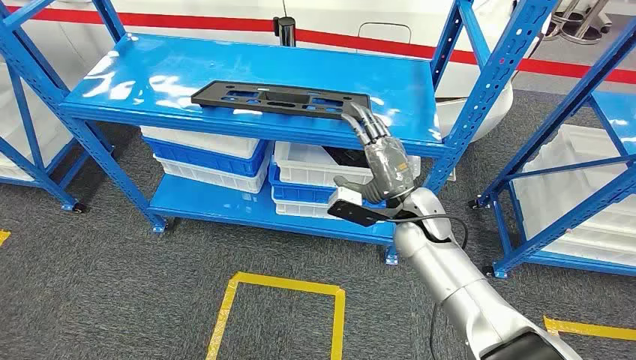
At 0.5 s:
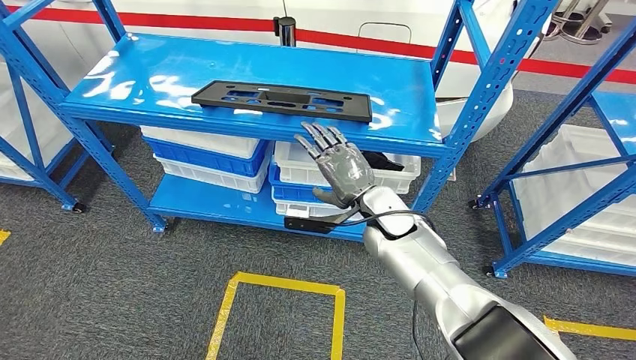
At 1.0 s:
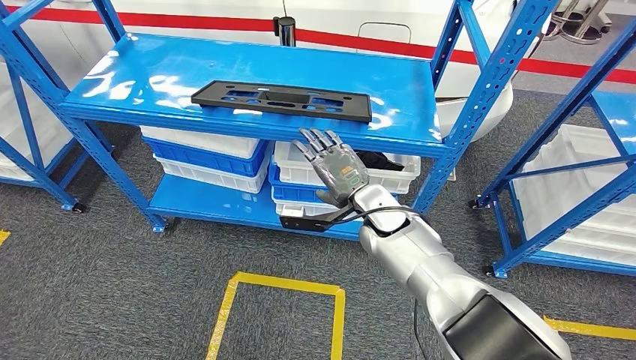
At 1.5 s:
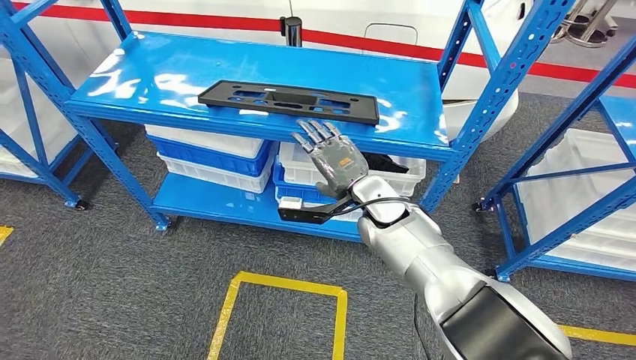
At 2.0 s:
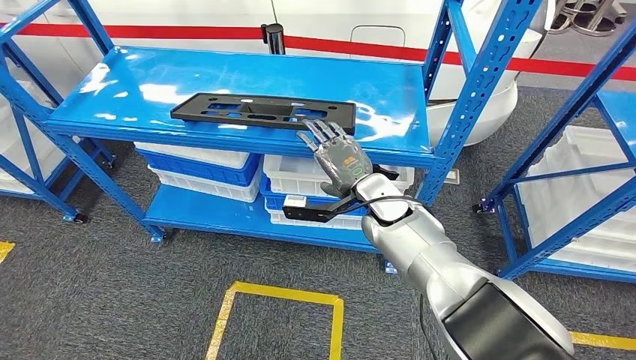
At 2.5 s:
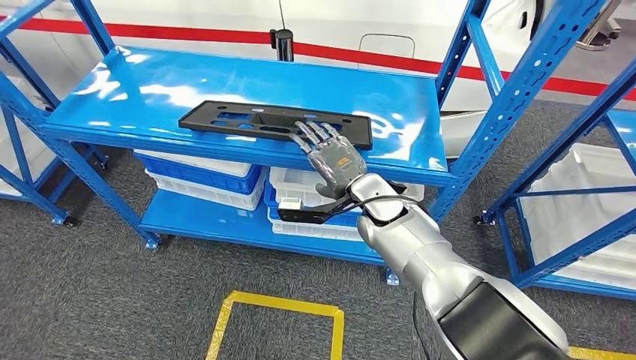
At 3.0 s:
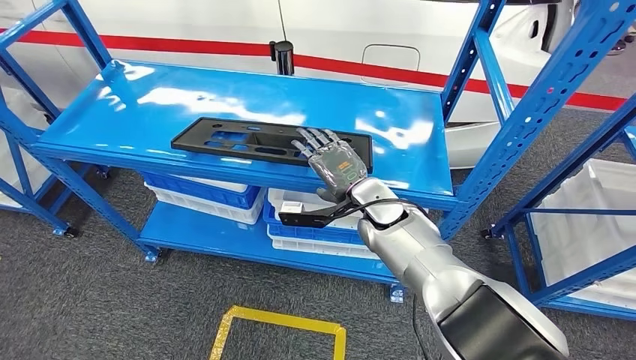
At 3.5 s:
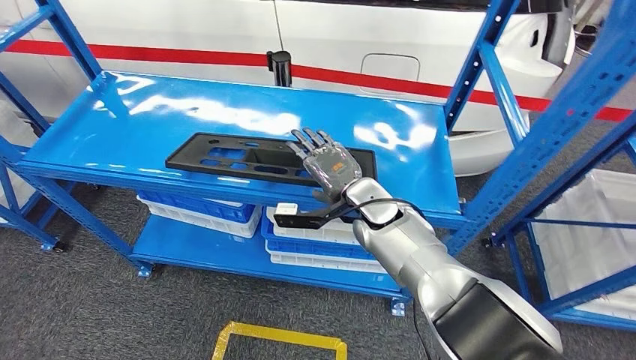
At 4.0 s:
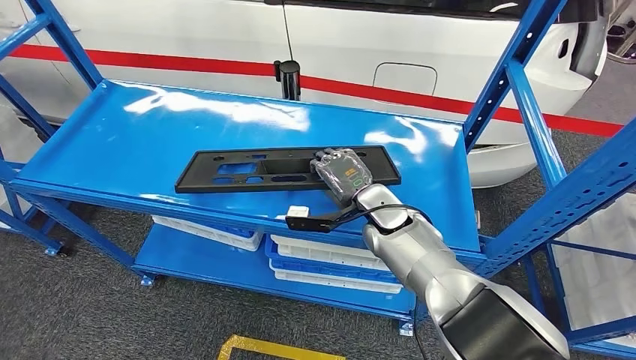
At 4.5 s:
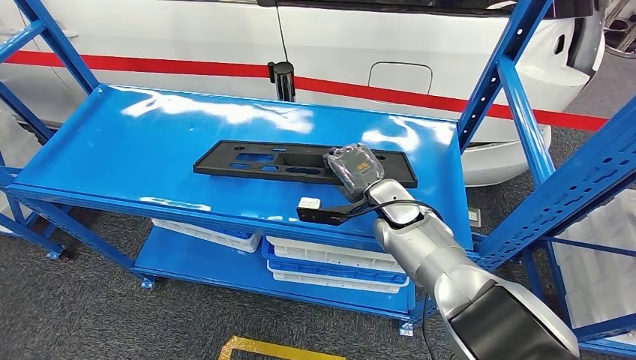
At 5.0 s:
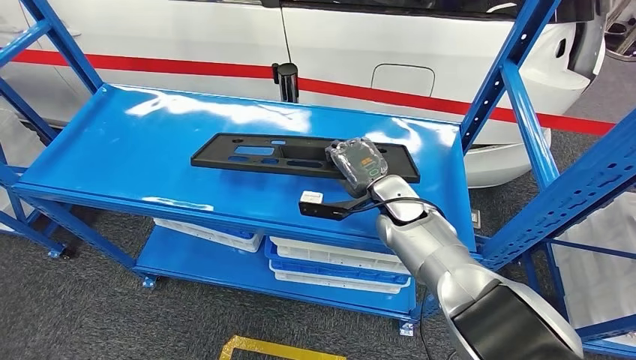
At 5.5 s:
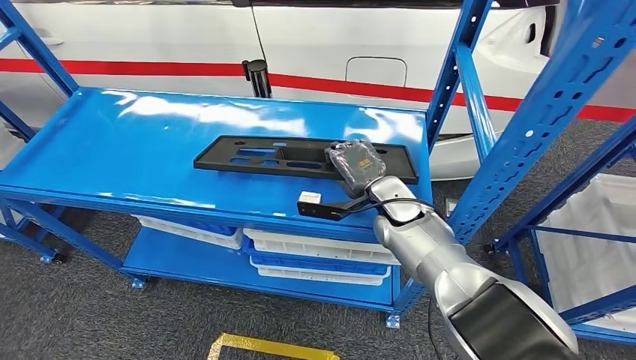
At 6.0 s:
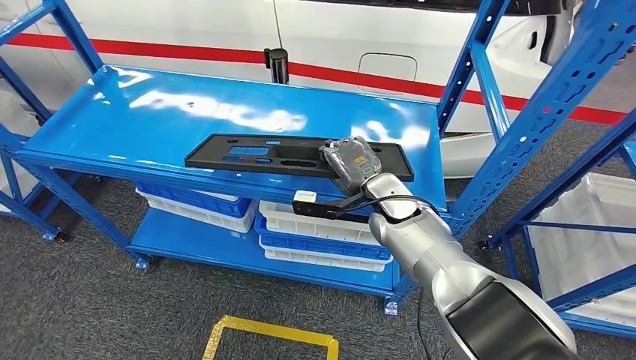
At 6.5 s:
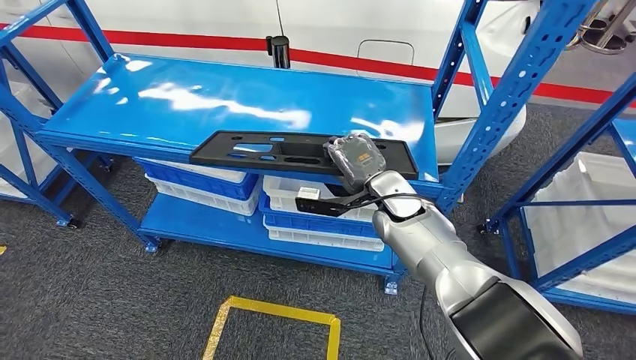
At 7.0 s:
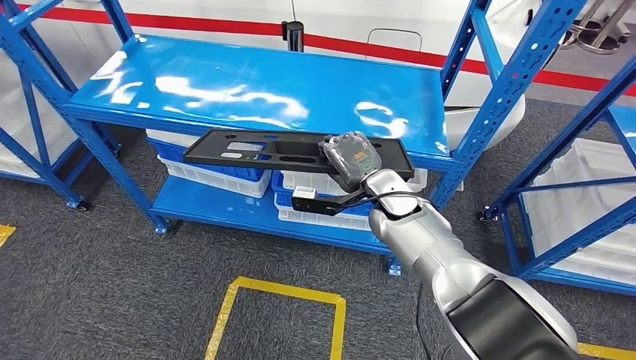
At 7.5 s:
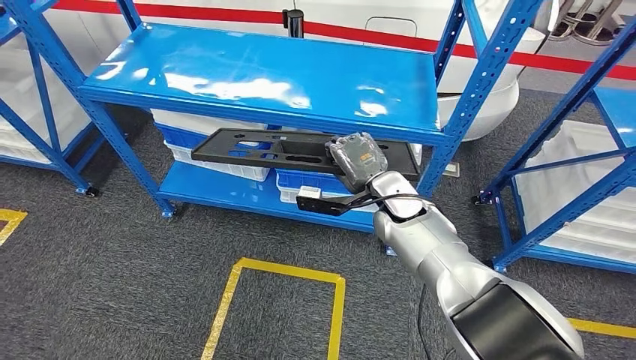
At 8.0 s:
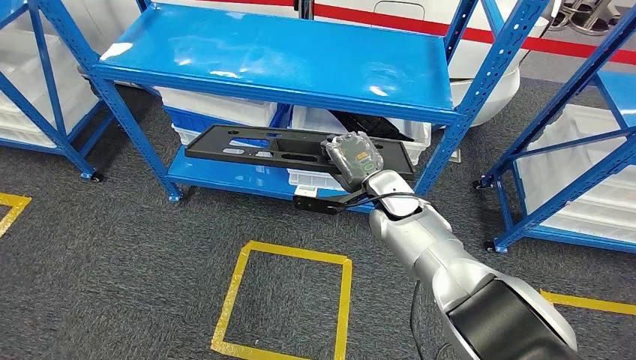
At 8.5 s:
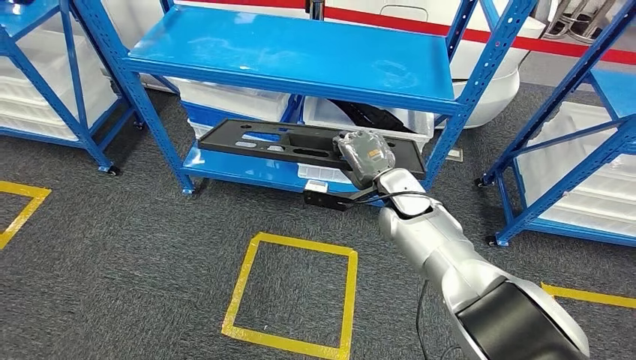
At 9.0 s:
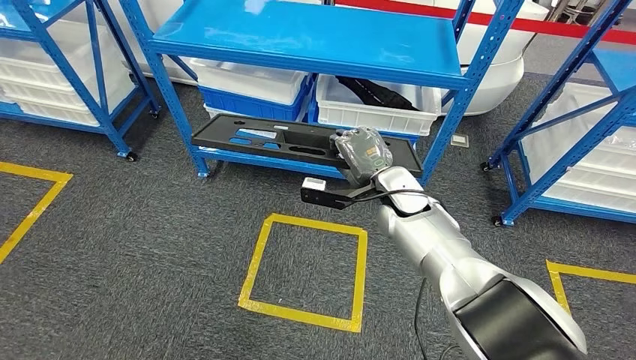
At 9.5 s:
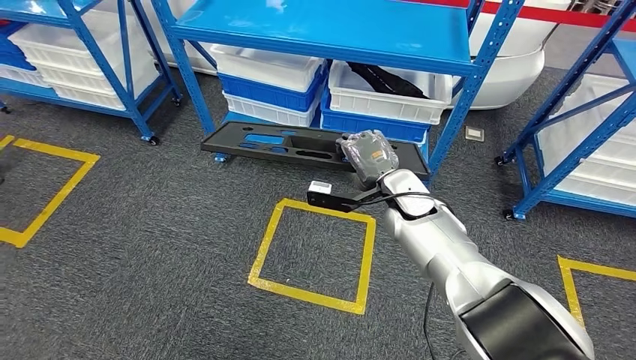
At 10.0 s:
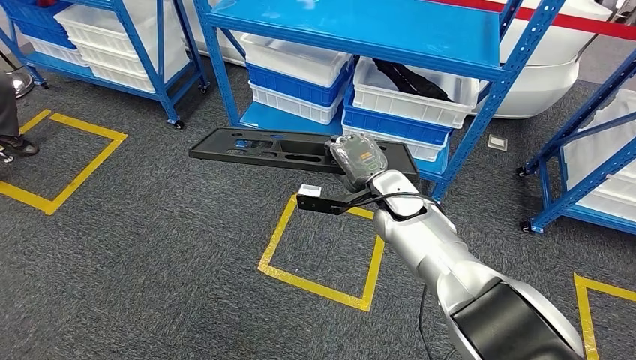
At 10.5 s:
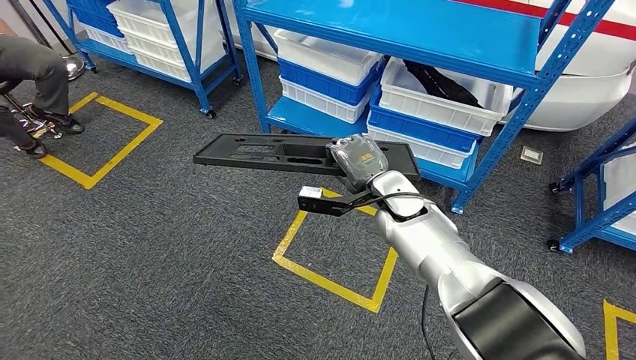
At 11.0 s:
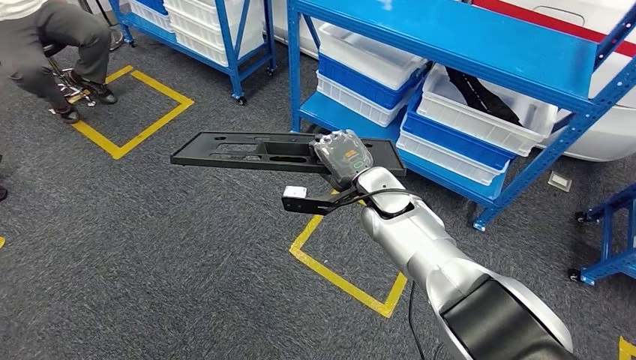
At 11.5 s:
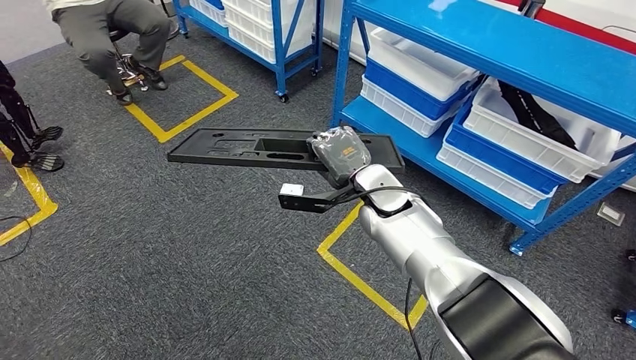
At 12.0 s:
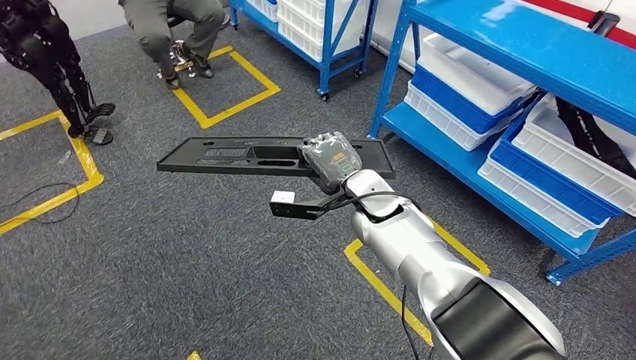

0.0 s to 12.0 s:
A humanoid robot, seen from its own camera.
Step, 0.0 to 9.5 s: Pick up the large material from the shelf.

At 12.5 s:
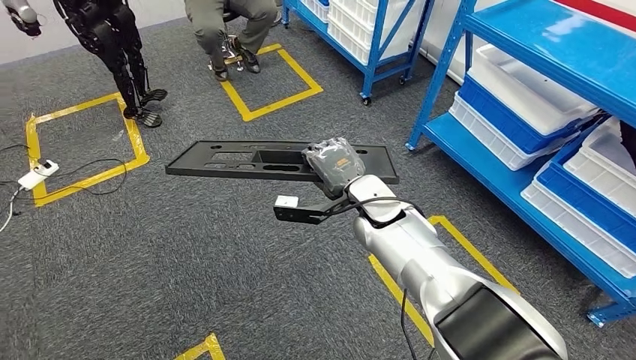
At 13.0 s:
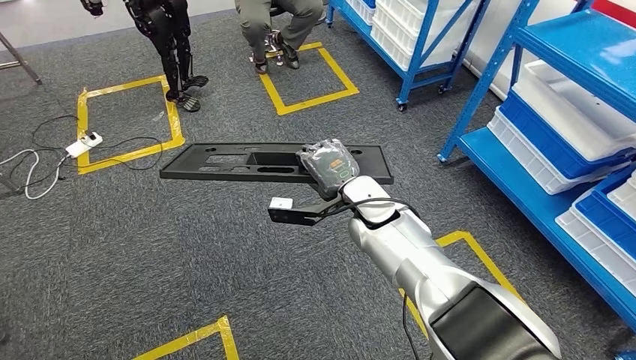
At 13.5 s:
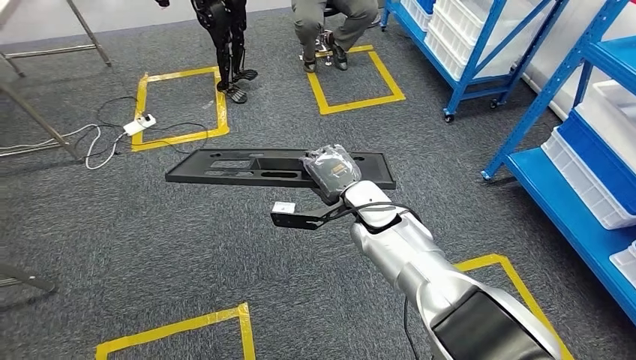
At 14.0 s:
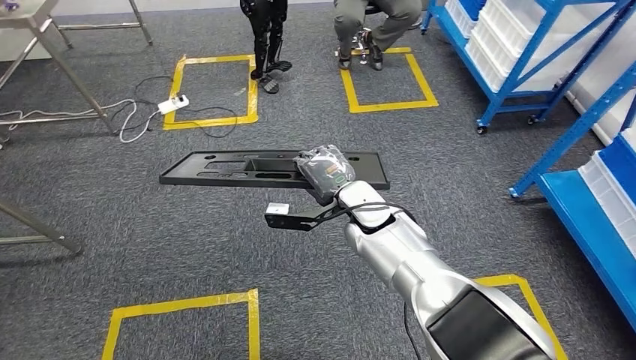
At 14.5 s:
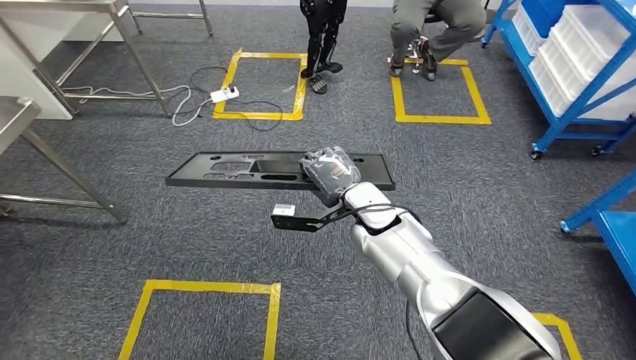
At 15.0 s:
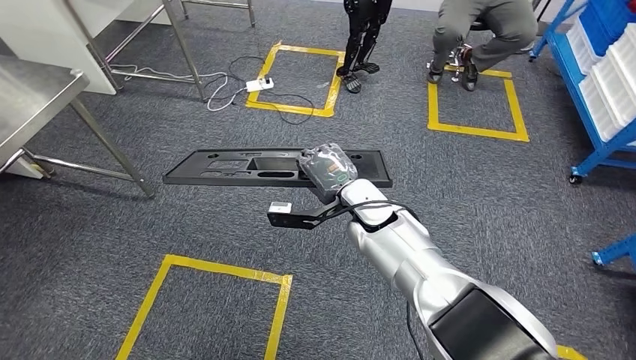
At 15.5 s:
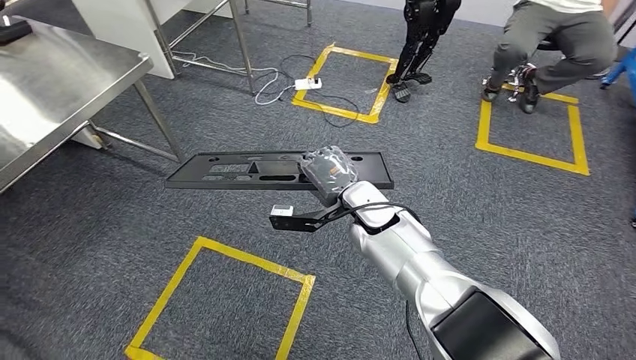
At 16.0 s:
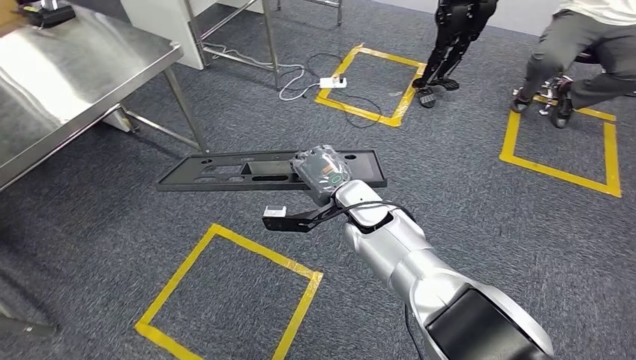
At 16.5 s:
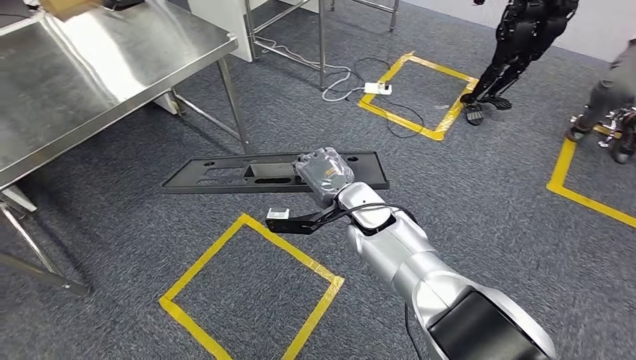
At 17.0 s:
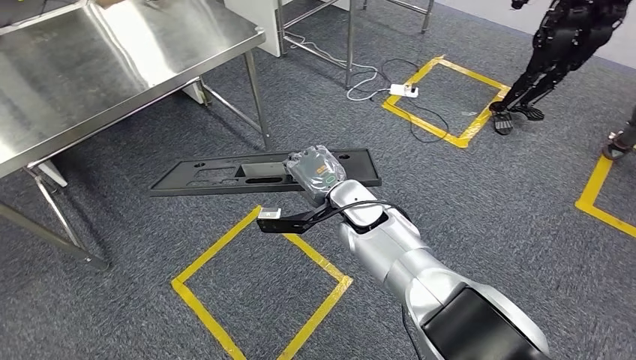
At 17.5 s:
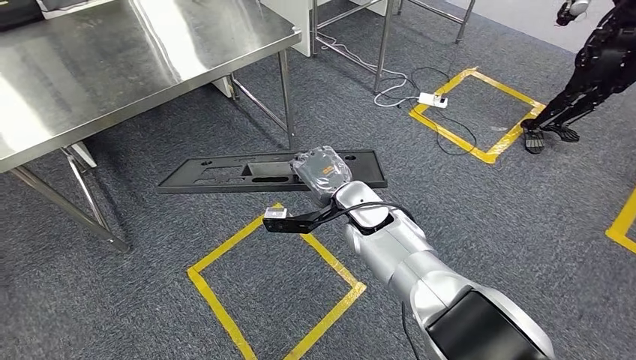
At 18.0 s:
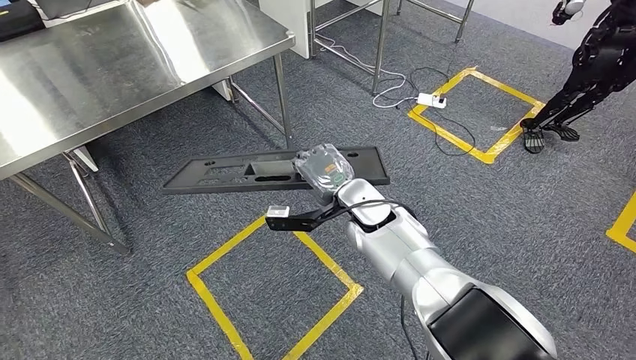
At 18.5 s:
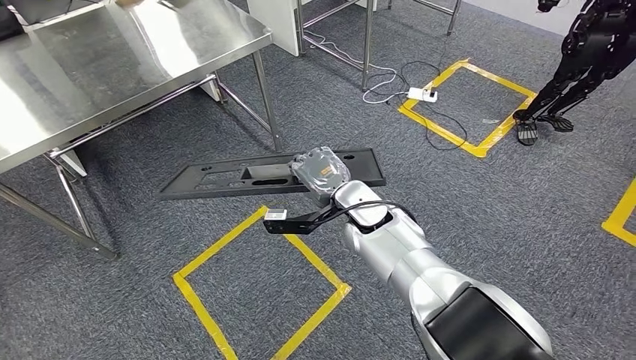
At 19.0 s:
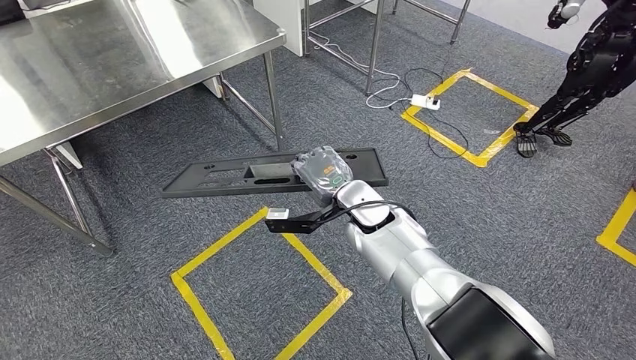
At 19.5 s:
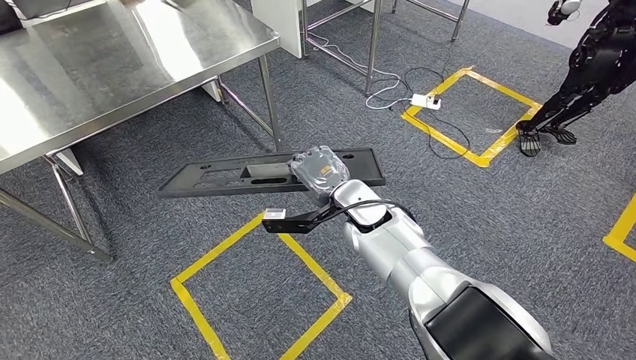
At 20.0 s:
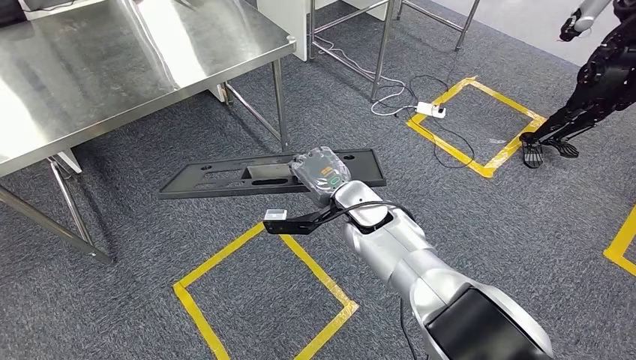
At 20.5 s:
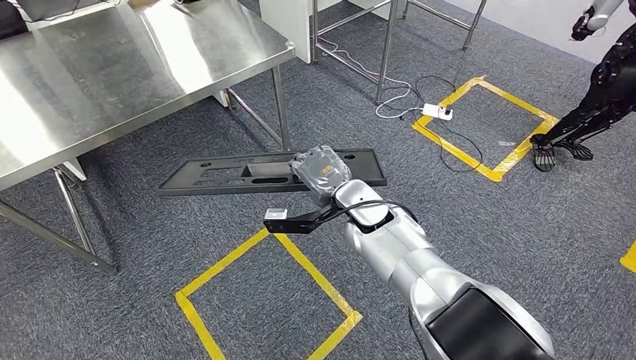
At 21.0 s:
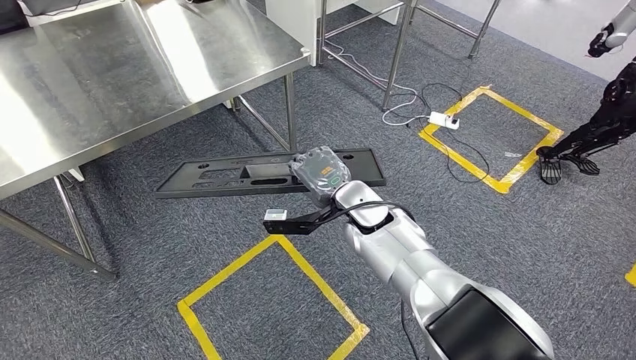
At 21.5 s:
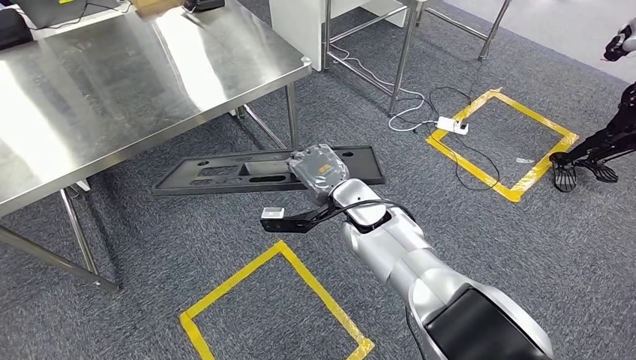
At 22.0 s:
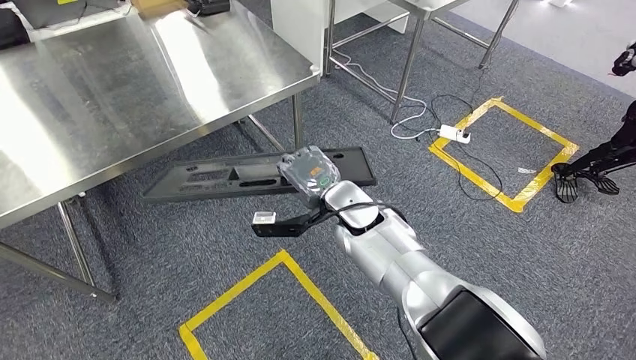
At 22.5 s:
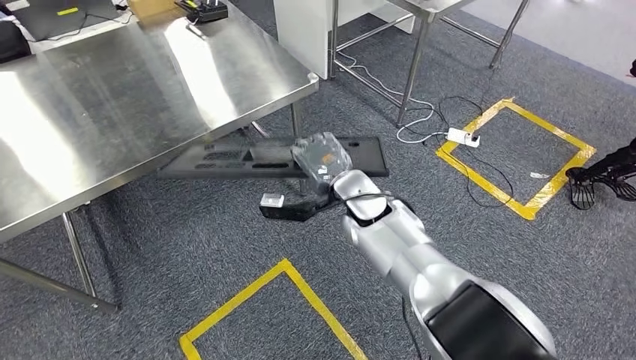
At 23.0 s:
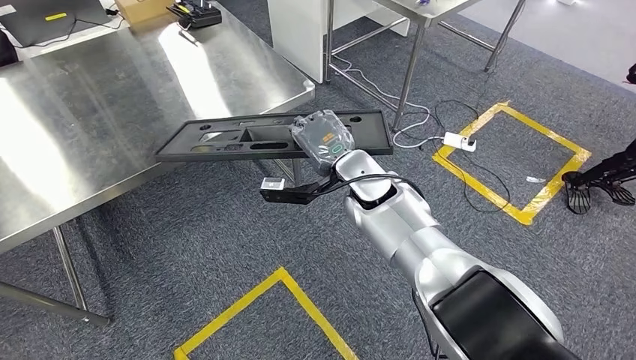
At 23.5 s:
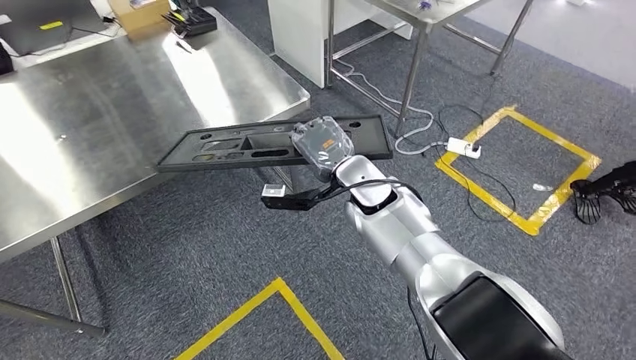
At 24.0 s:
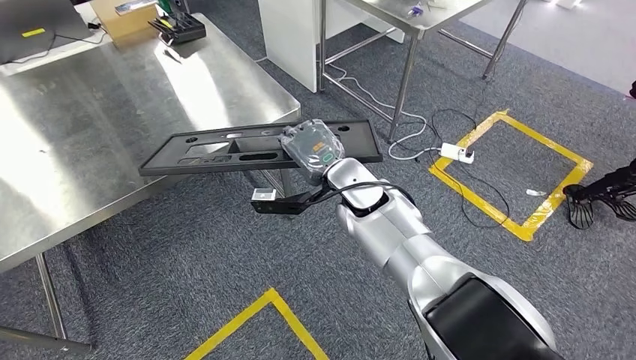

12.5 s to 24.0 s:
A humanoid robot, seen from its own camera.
Step, 12.5 to 22.5 s: Move the large material to the front of the workbench.
